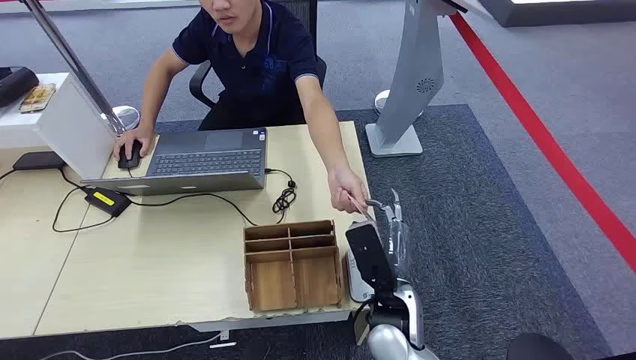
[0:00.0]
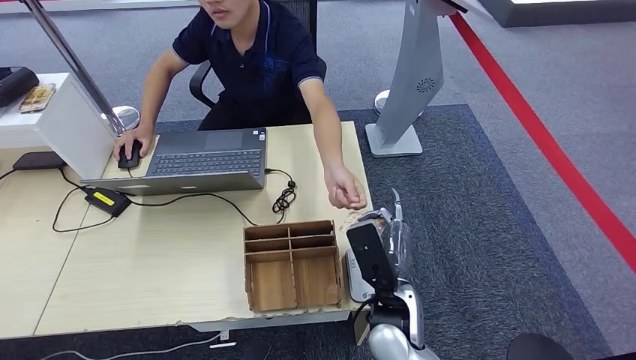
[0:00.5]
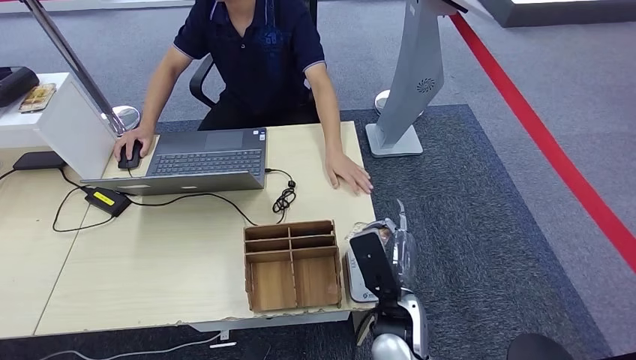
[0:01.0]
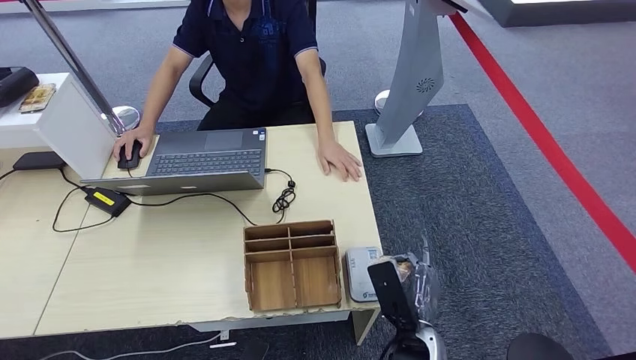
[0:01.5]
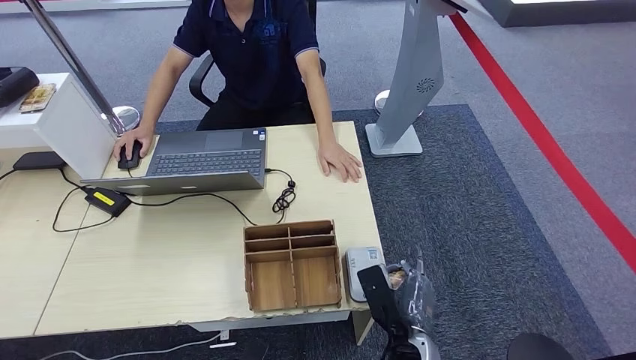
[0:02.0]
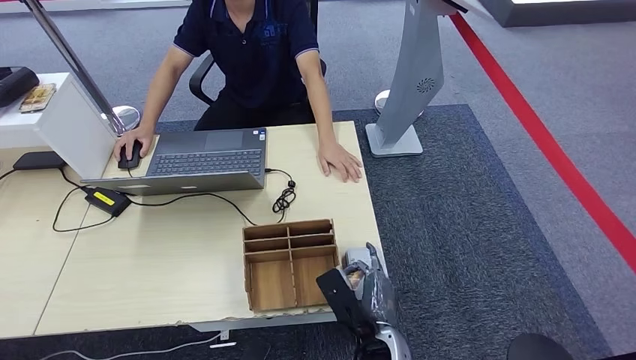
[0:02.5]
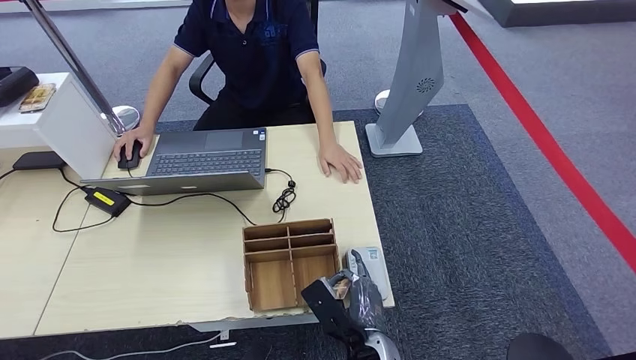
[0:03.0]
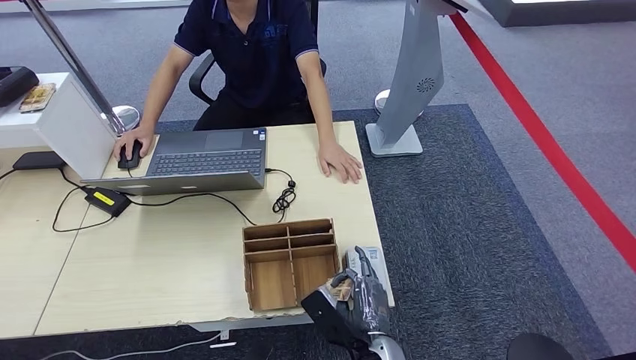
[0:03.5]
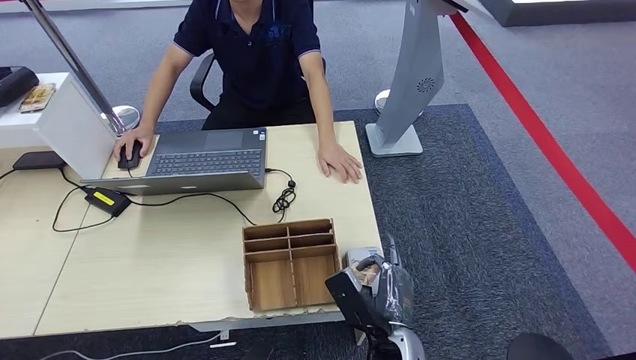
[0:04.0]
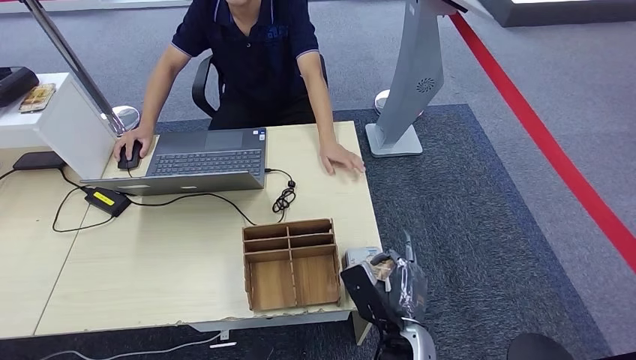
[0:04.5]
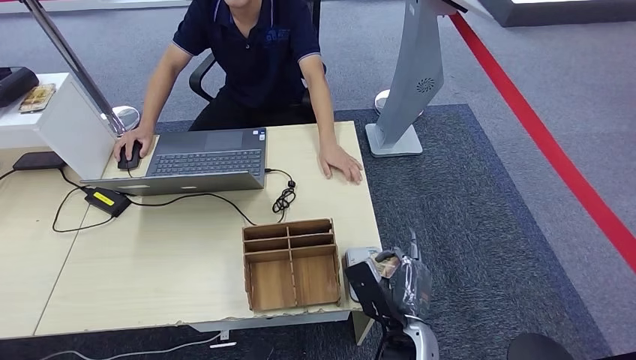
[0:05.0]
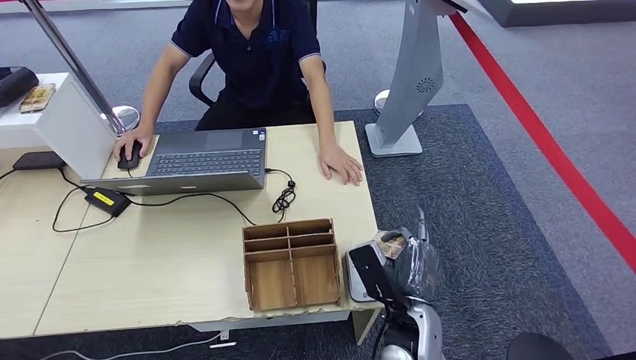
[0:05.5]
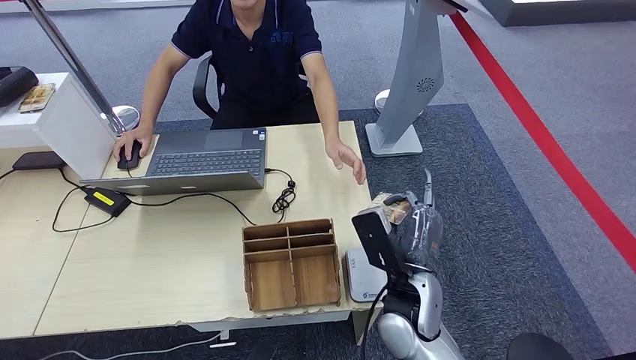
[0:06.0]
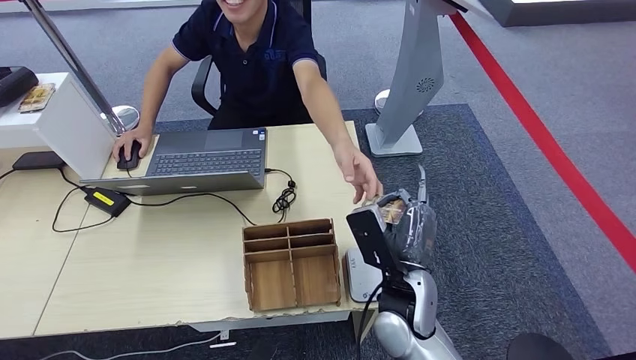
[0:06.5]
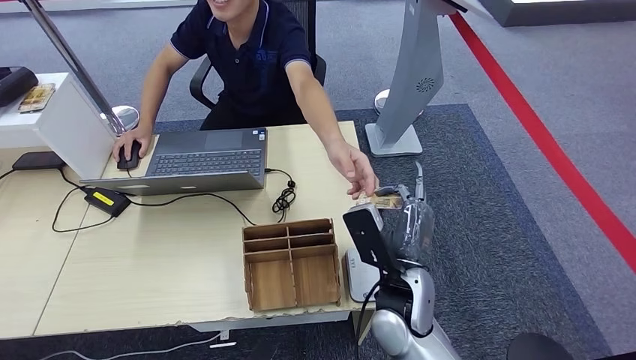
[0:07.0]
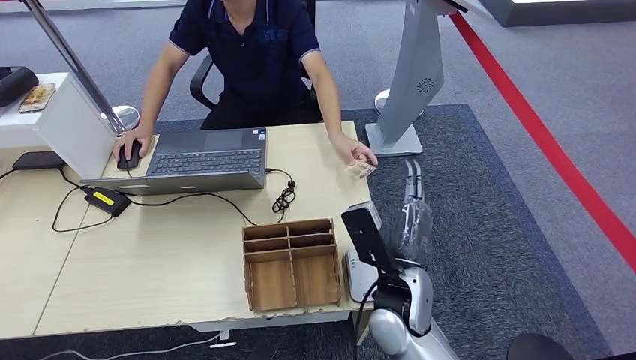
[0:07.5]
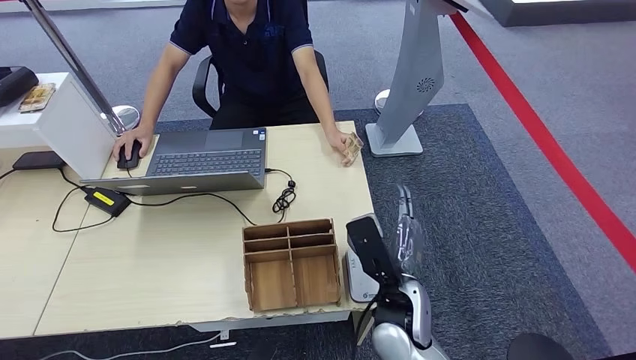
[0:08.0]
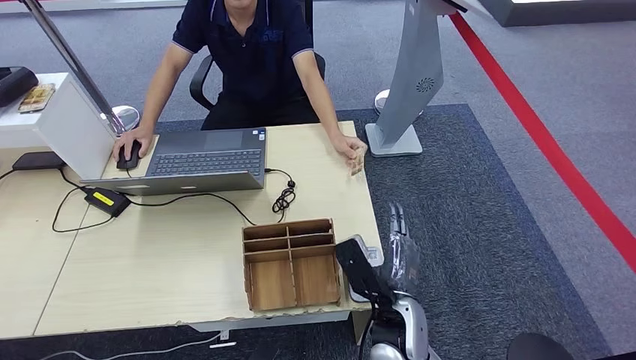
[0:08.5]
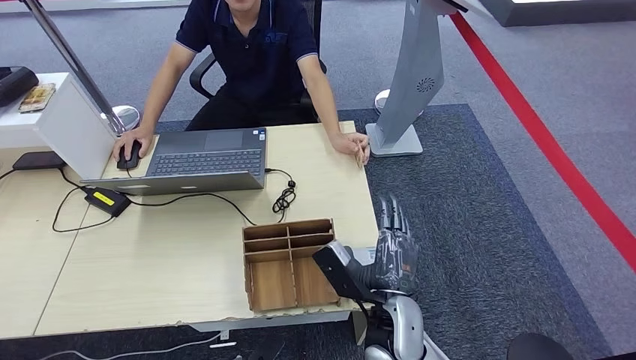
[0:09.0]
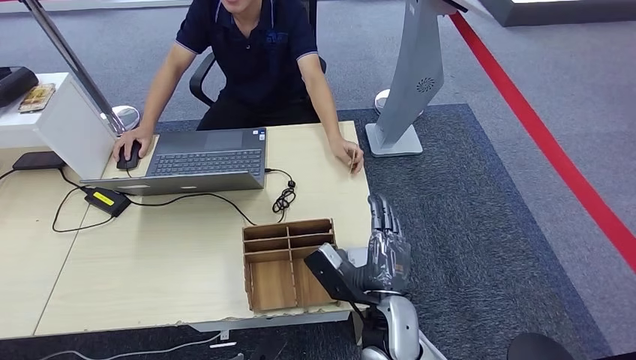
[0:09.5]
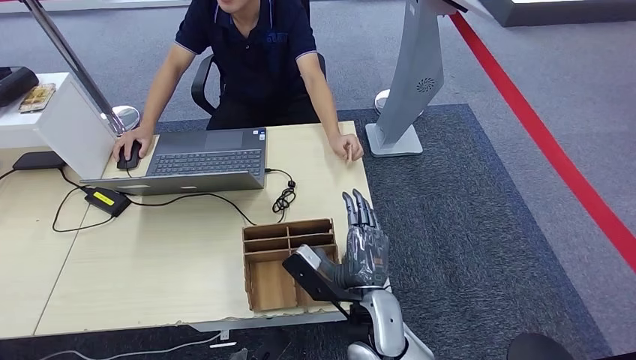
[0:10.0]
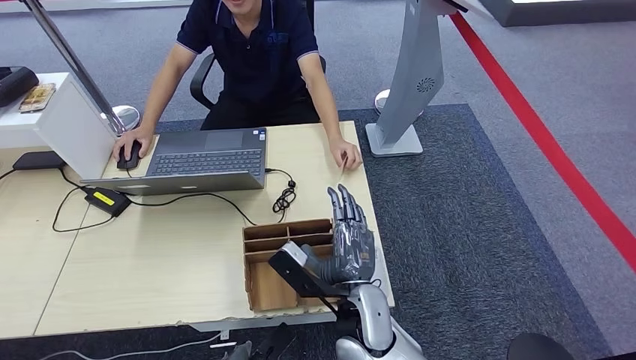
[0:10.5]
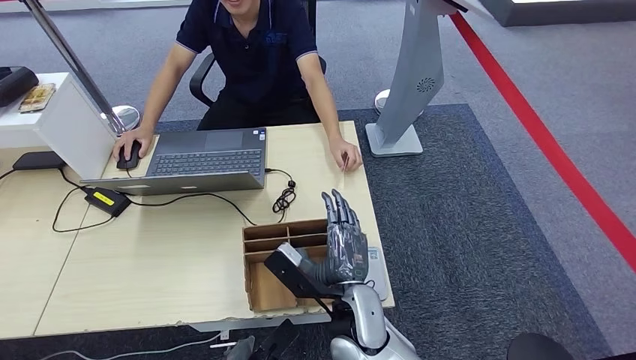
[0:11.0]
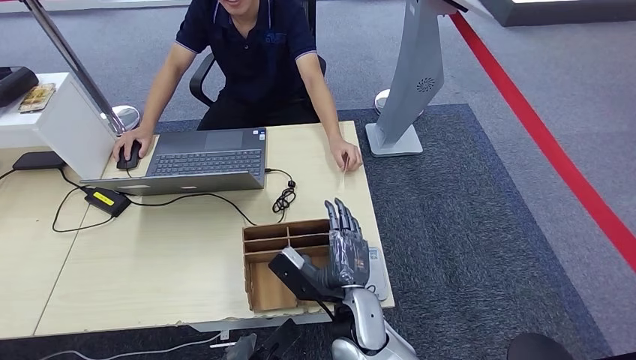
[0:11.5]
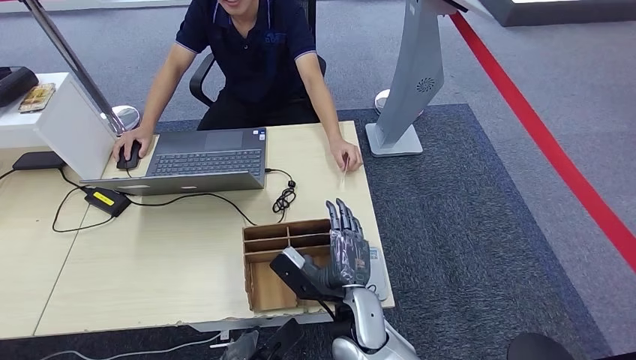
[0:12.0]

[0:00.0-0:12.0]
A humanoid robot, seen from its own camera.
Step, 0:00.0 to 0:00.5: Take the ID card from the person's hand.
Step, 0:01.5 to 0:04.5: Place the ID card on the card reader.
Step, 0:05.0 to 0:07.5: Hand the ID card to the person.
0:02.0 to 0:04.0: The hands move only a little.
0:04.0 to 0:06.0: The right hand goes roughly 10 cm forward and upward.
0:06.0 to 0:08.0: The hands move only a little.
0:10.0 to 0:12.0: There are only small adjustments of the hands.

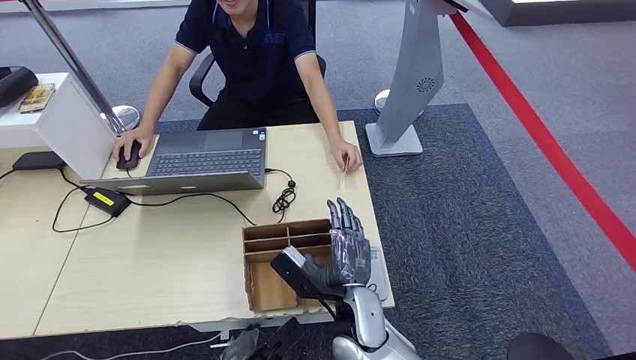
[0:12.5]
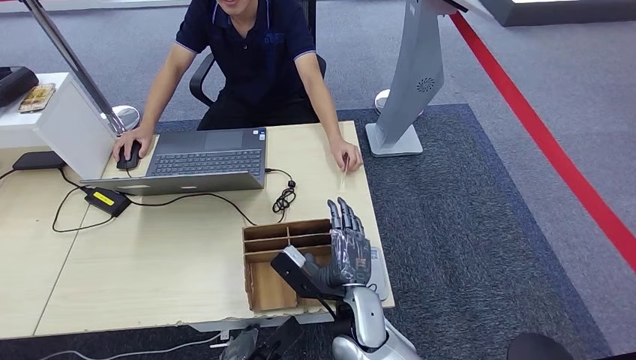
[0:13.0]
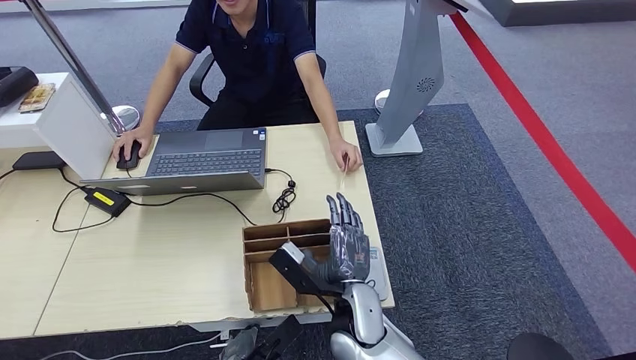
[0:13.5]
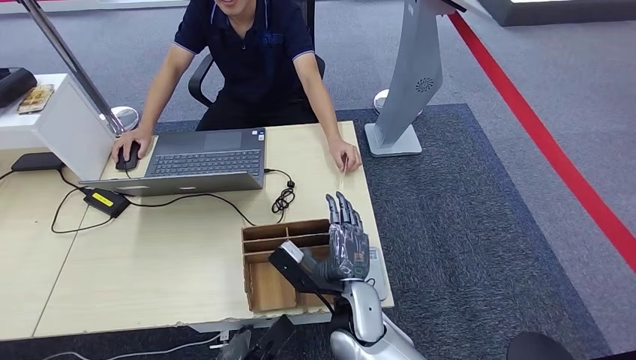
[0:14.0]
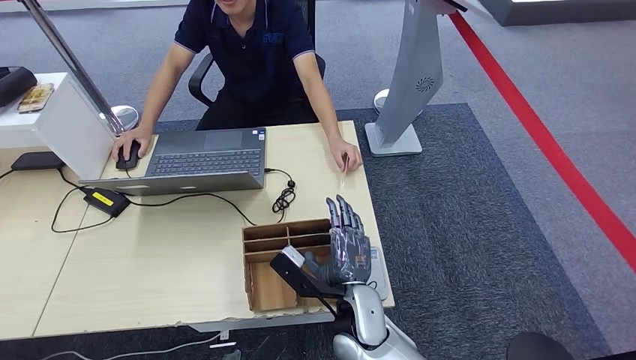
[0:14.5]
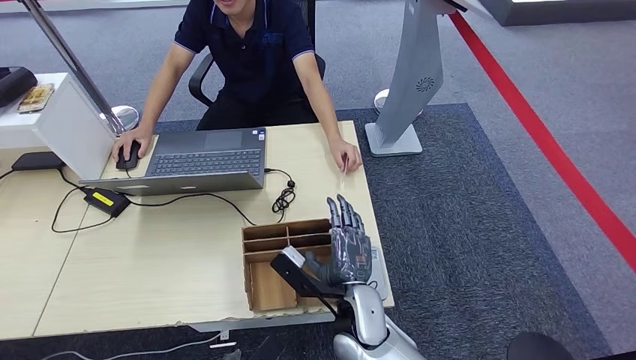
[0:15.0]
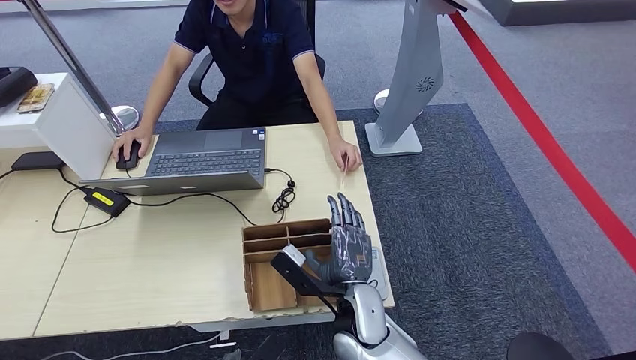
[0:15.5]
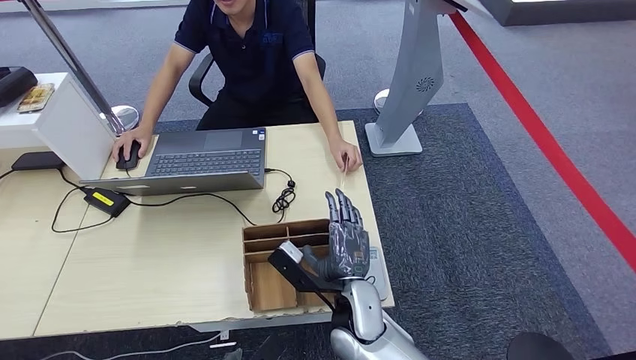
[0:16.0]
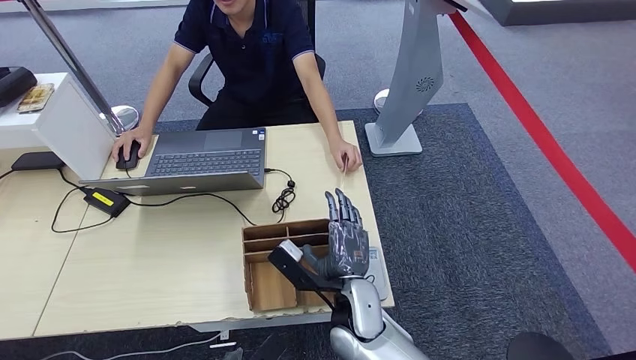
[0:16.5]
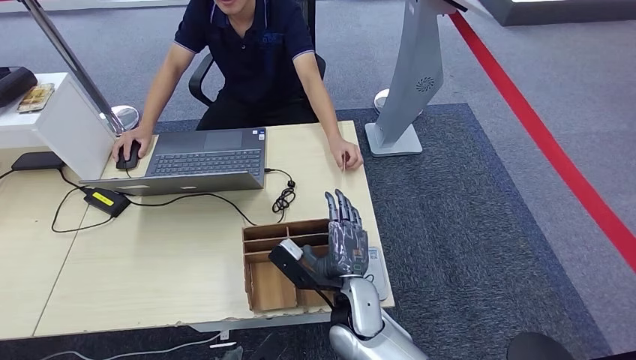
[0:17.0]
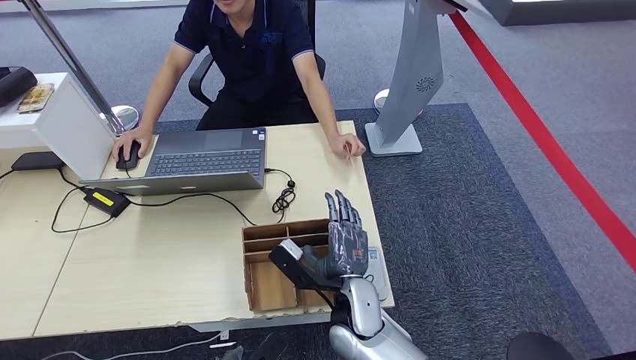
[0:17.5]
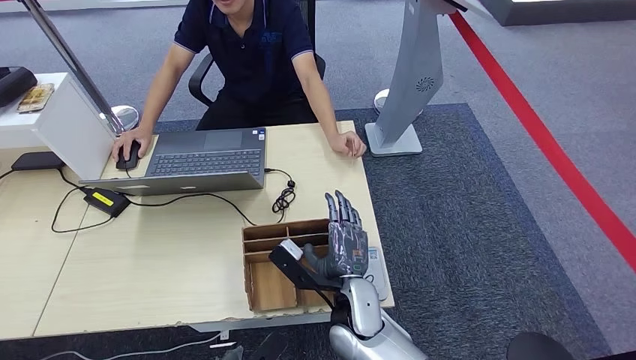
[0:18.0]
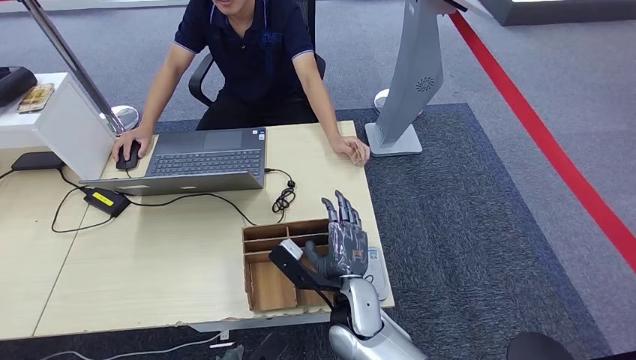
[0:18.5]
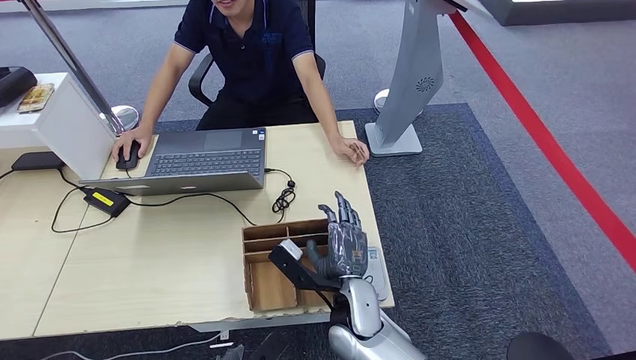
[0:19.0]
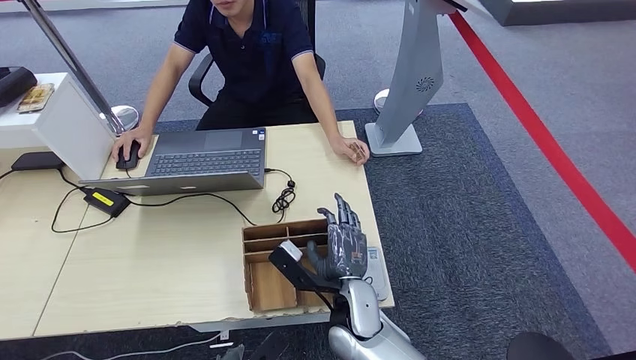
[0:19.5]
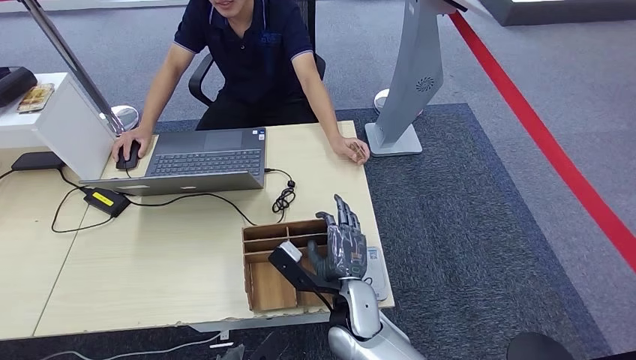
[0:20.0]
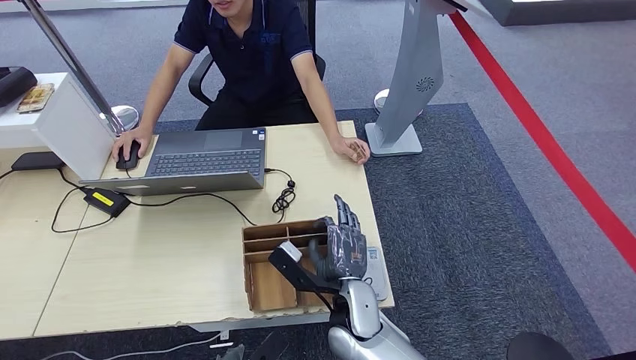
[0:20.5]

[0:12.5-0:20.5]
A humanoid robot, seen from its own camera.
0:12.5 to 0:14.5: The left hand moves approximately 5 cm.
0:14.5 to 0:18.5: The two hands keep their place.
0:18.5 to 0:20.5: The two hands keep their place.
